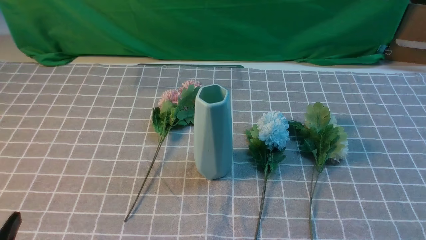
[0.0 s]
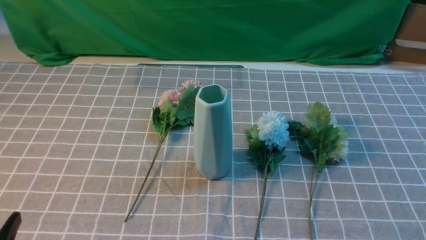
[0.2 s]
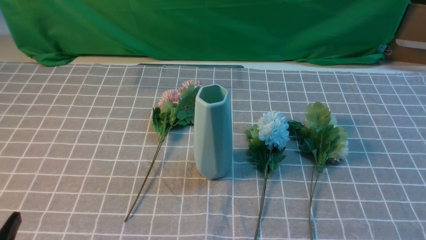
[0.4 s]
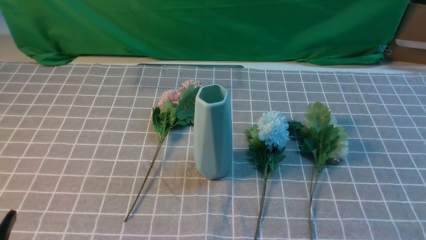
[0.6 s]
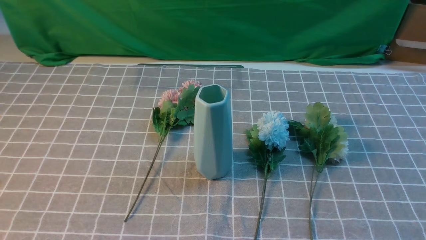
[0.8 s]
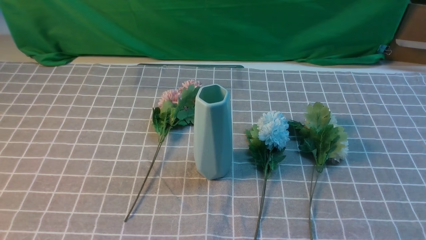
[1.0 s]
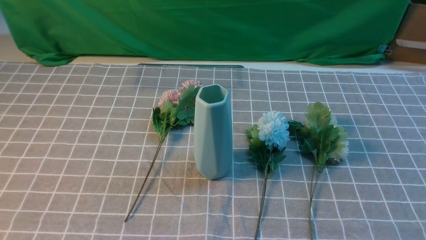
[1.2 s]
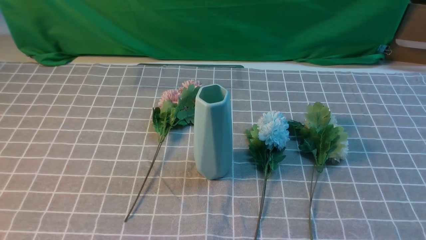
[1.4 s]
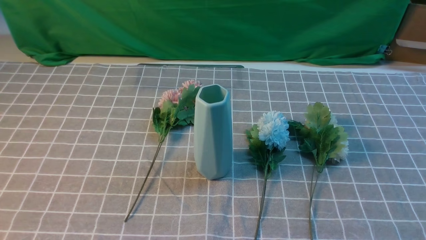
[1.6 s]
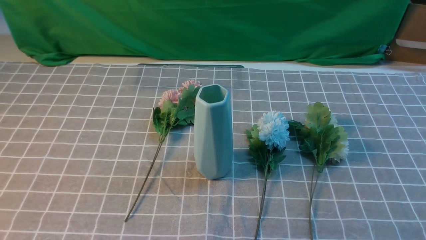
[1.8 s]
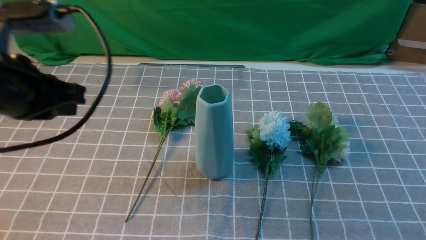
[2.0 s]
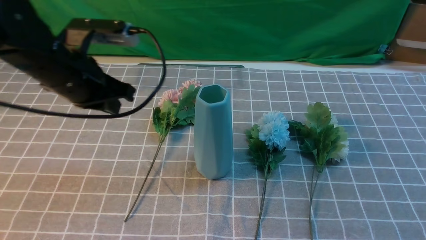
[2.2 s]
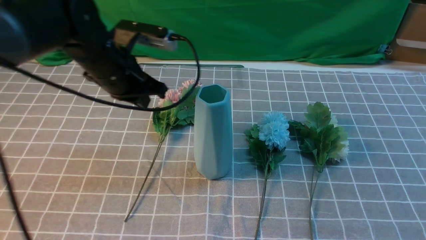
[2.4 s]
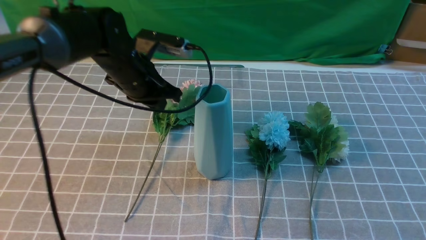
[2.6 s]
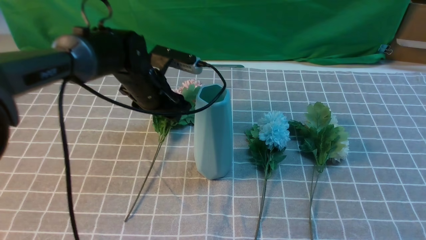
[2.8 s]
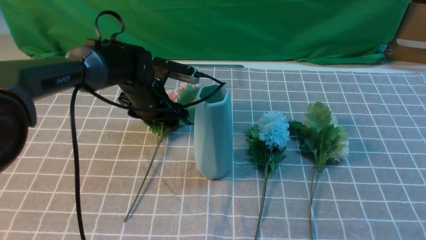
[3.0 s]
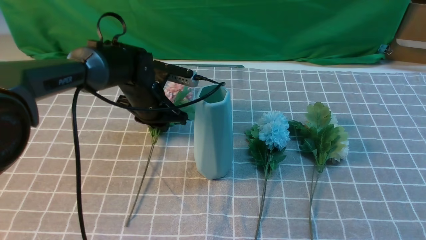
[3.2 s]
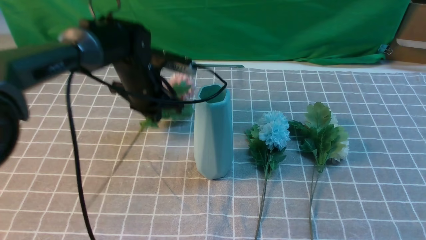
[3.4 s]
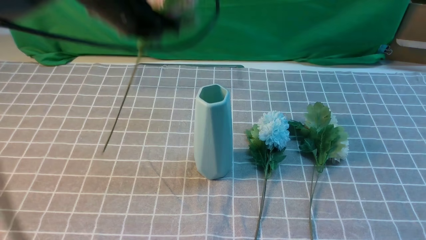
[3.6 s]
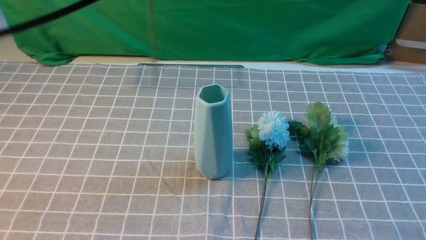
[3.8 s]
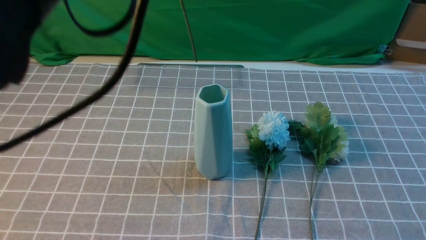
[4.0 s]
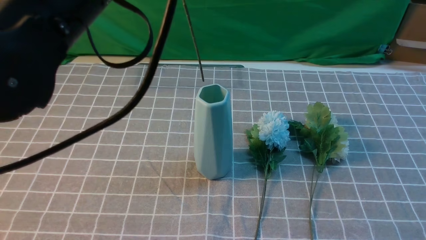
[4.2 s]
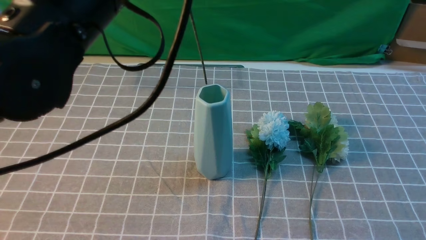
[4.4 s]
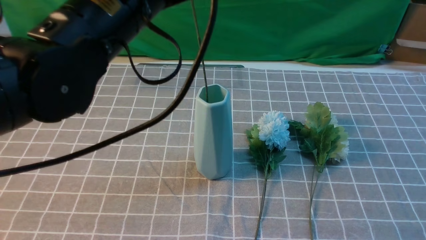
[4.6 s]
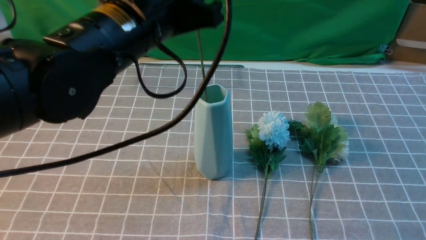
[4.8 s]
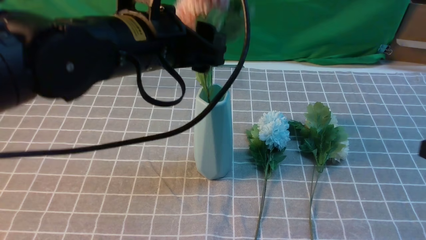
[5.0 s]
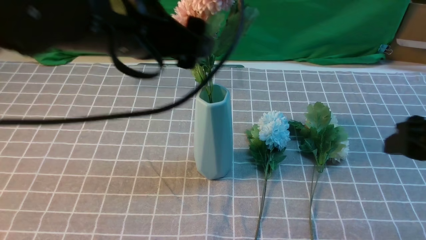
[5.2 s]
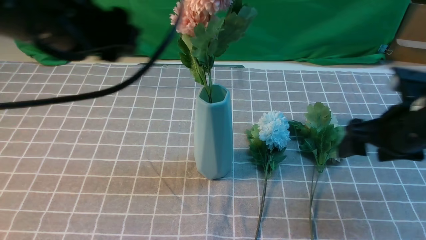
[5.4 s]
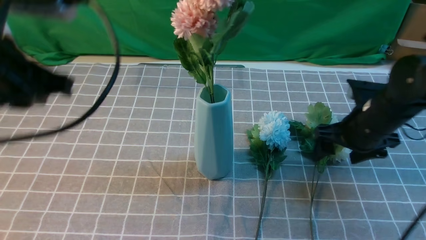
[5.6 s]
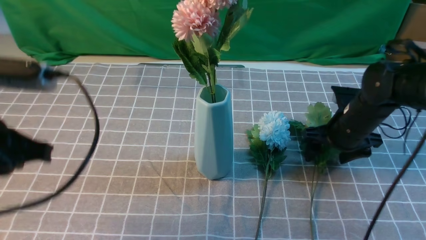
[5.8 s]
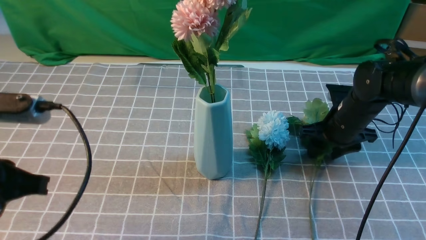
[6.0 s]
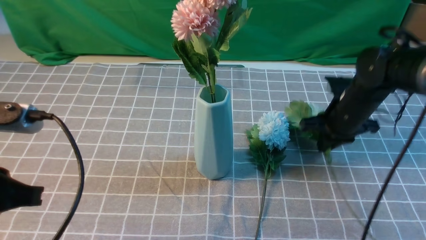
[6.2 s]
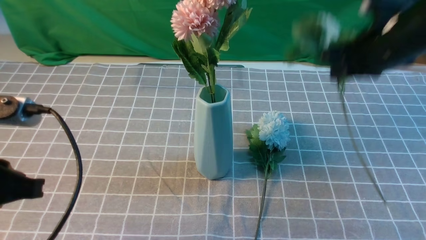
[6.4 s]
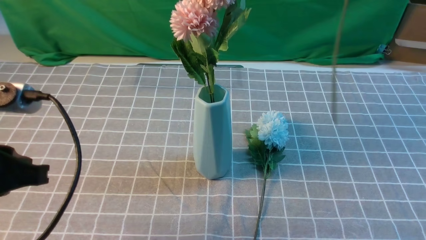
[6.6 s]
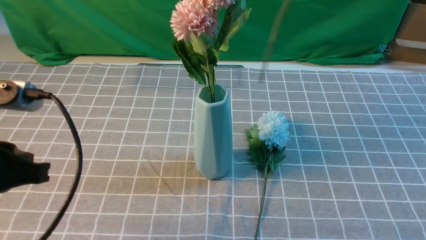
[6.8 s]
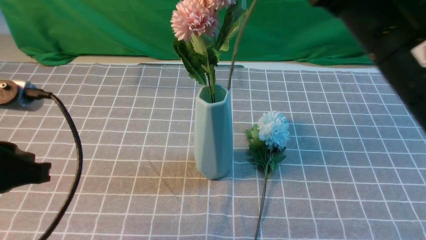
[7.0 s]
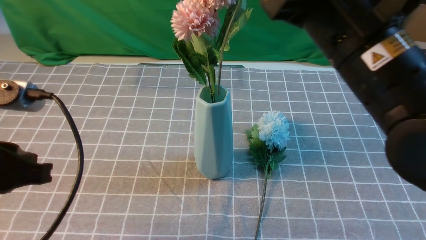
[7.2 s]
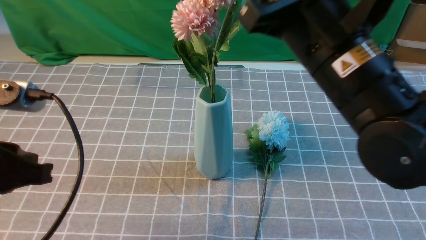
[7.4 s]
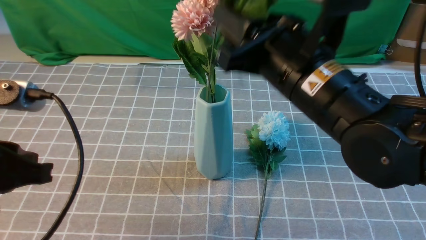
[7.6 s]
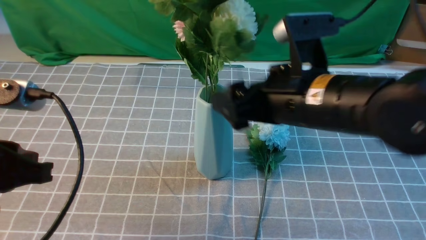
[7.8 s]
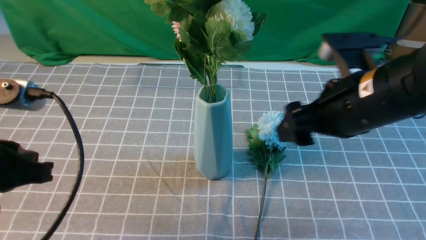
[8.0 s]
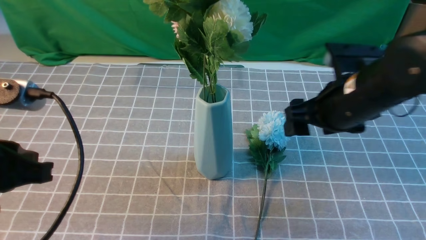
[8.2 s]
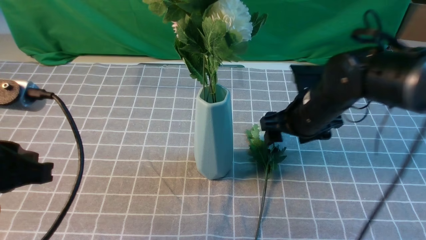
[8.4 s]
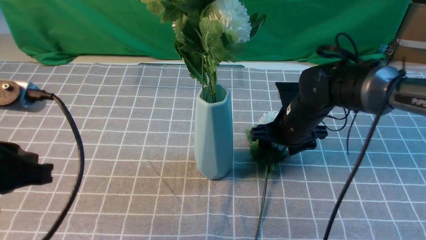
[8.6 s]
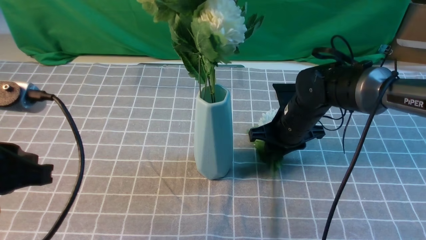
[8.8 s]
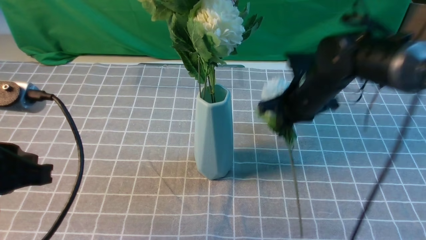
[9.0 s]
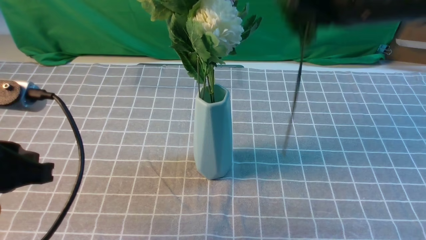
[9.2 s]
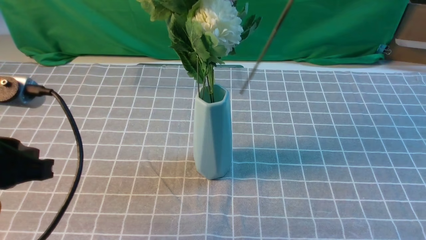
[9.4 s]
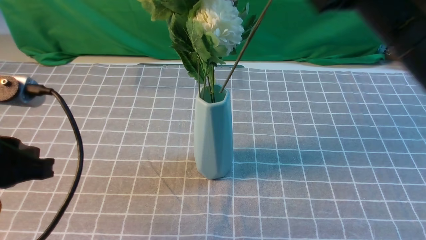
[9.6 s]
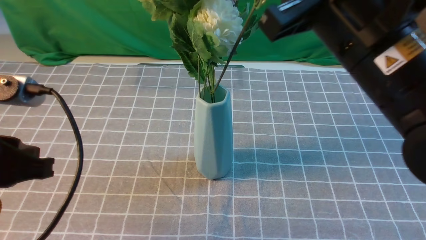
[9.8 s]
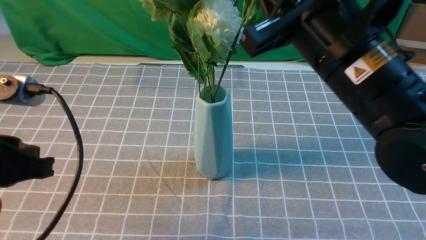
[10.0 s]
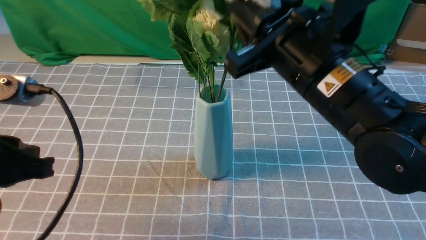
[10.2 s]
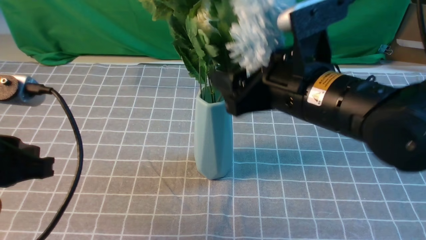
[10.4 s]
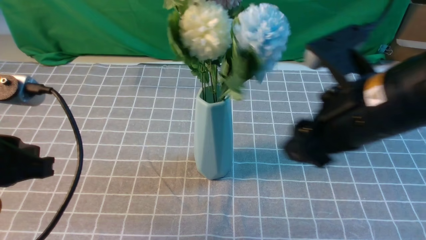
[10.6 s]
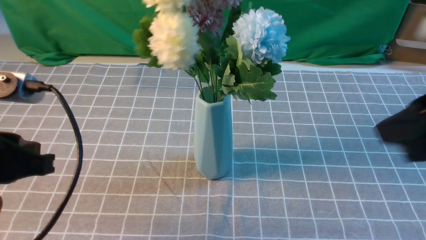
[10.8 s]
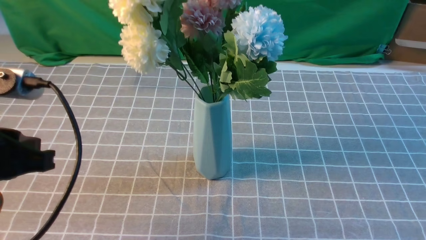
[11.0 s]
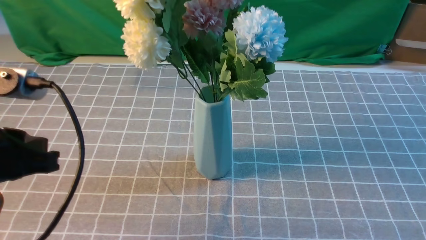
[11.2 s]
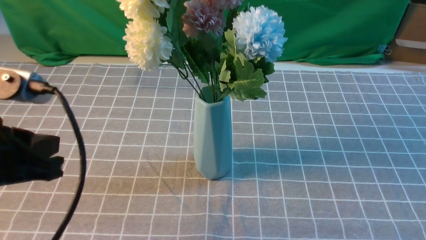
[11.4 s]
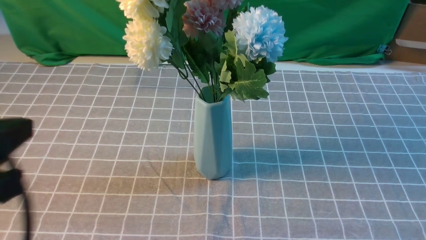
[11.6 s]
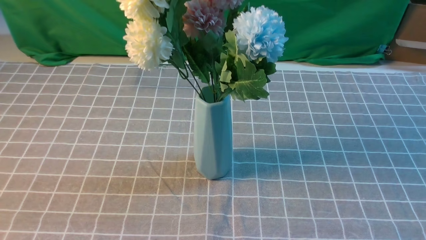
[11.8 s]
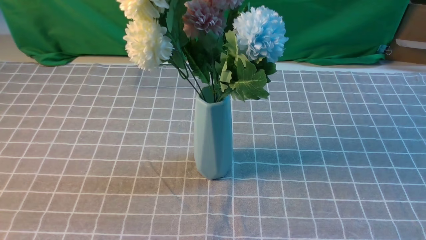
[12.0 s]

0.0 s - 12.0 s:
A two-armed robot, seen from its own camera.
Task of the whole recording: insert the flowers into the vase on the table with the grey tablecloth.
Step, 0.0 s - 3.2 s: use the left arm to grab a bunch of fresh flowers.
Step, 3.4 s - 5.2 s: use the left arm to insert the flowers into the vase.
Step, 5.4 s - 6.0 s: use the right arm to grab a bunch of fresh flowers.
Step, 6.4 s - 7.8 s: use the right arm to insert the flowers into the vase.
Step, 8.0 s - 8.8 s: use the right arm to grab a bunch of fresh flowers.
Step, 9.0 s - 10.4 s: use the right arm to insert the flowers into the vase.
1.6 s - 3.0 s: The right gripper is displaced upward and forward by about 15 cm. The left gripper travels forward and downward by roughly 40 cm, and opens.
3.0 s - 4.4 s: The left gripper travels upward and backward by about 30 cm, and closes its fingers.
4.4 s - 6.0 s: The right gripper travels forward and downward by roughly 30 cm, and opens and closes again; the left gripper goes about 20 cm to the left, downward and backward, and opens, then closes again.
6.0 s - 7.6 s: The right gripper heads upward, backward and to the left, covering approximately 25 cm, and closes and opens again.
7.6 s - 9.0 s: The right gripper shifts about 10 cm forward, reaches some 15 cm downward, then returns, and closes up.
9.0 s - 10.4 s: The right gripper travels backward by about 10 cm, reaches about 15 cm upward, then returns, and opens its fingers.
10.4 s - 12.0 s: The right gripper shifts about 30 cm backward and to the right, and closes its fingers. The left gripper goes some 15 cm backward and upward.

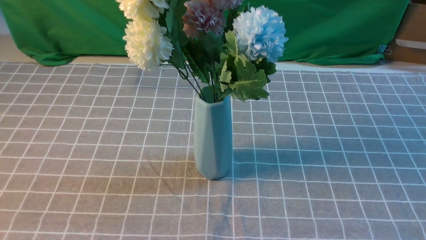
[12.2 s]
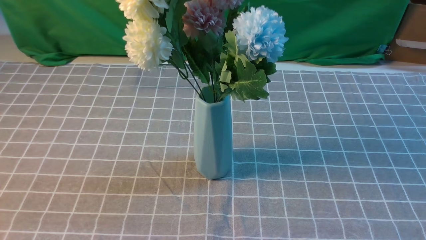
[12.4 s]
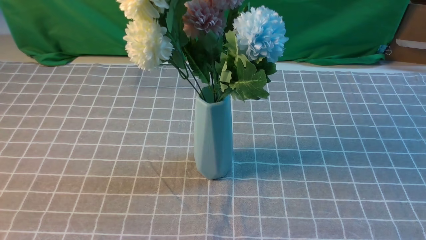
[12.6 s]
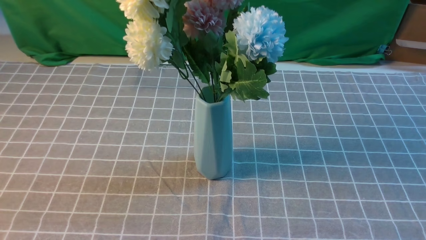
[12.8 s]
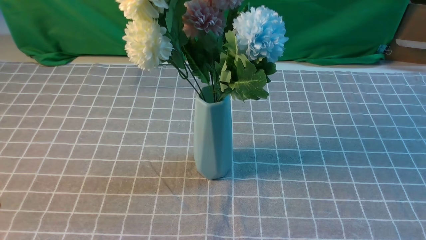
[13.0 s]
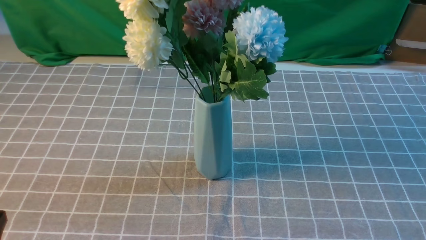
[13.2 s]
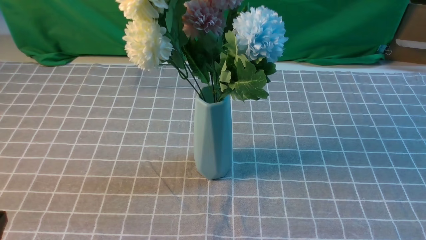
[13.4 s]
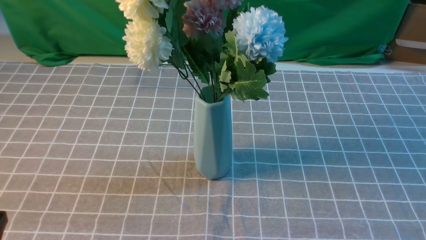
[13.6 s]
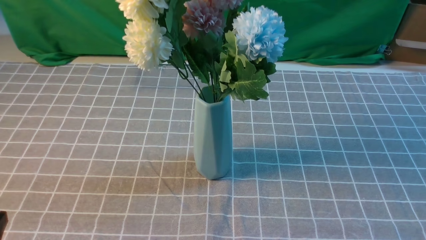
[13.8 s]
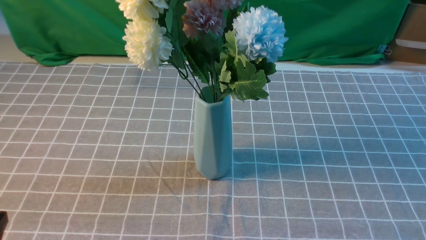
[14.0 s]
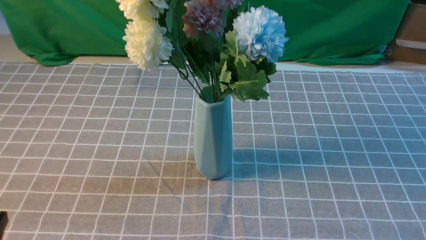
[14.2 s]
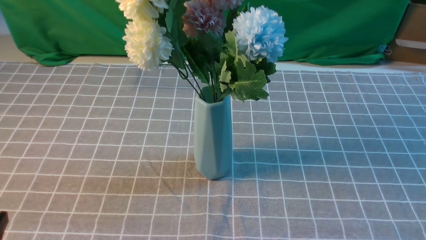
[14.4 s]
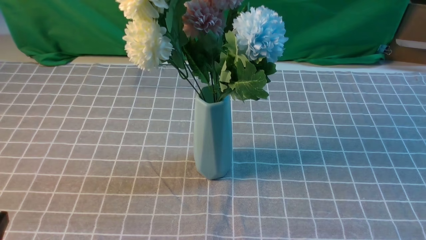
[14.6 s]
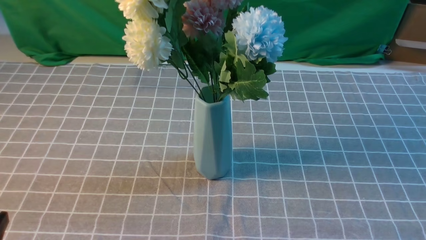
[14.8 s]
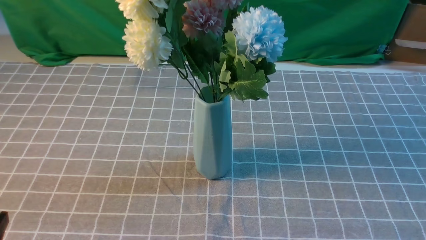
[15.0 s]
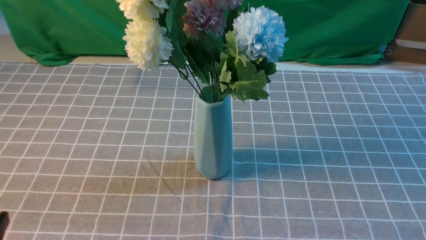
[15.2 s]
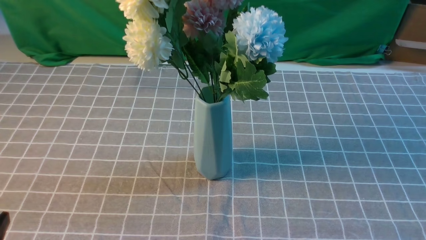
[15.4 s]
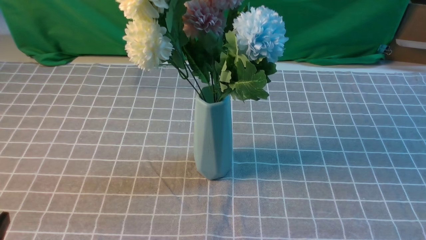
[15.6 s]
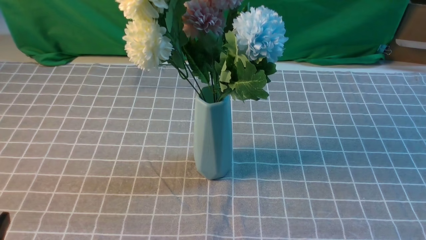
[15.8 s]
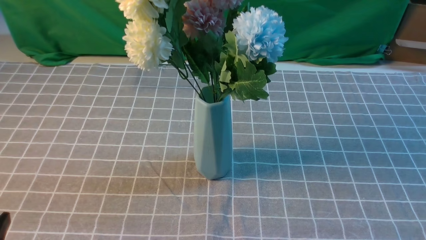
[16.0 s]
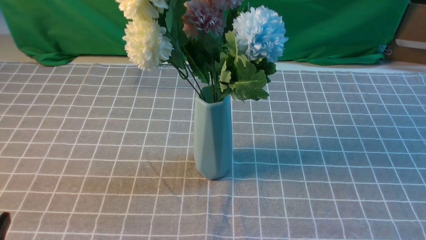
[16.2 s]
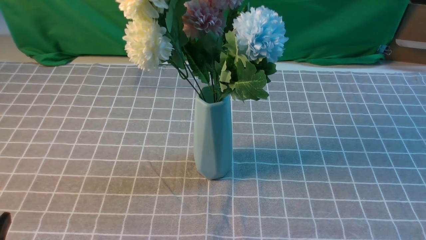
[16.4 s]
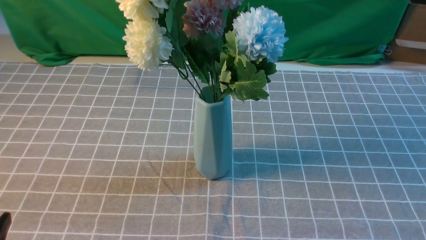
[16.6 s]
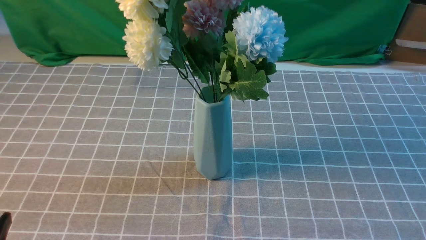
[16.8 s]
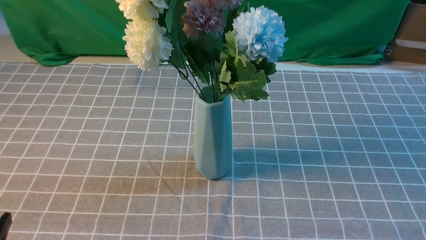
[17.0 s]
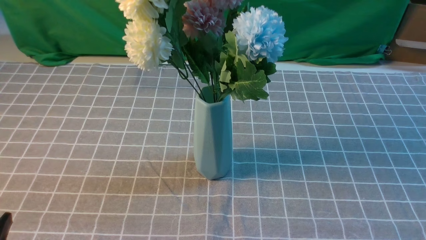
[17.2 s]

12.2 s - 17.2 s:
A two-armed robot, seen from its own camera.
Task of the whole recording: insert the flowers into the vase on the table with the grey tablecloth.
15.6 s - 17.2 s: The two grippers keep their place.
